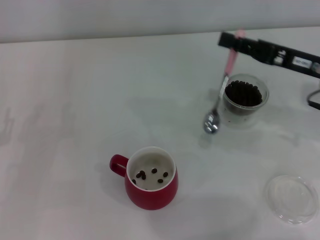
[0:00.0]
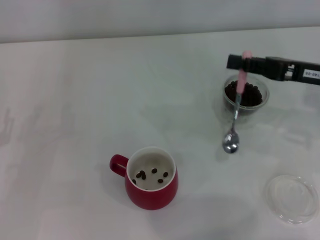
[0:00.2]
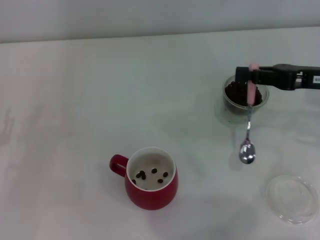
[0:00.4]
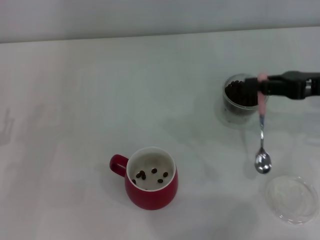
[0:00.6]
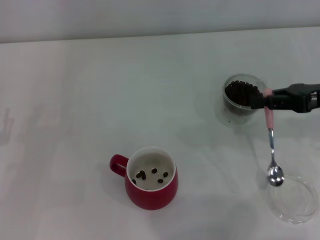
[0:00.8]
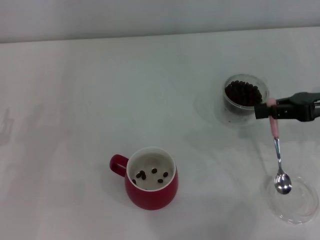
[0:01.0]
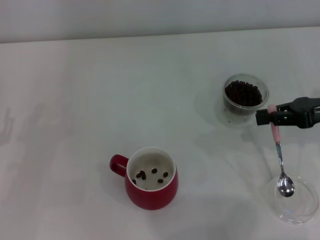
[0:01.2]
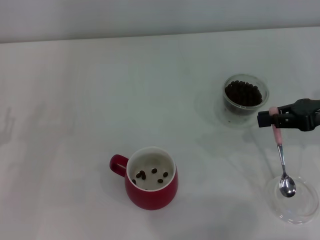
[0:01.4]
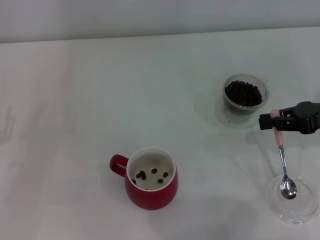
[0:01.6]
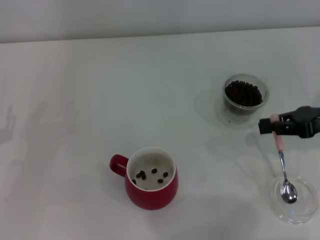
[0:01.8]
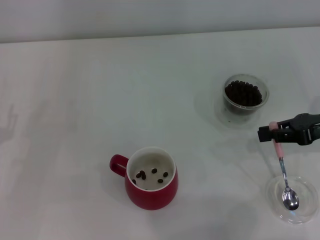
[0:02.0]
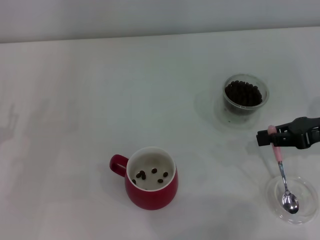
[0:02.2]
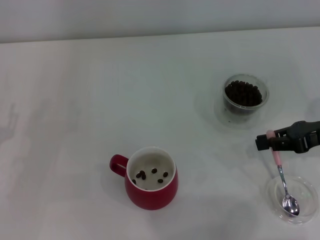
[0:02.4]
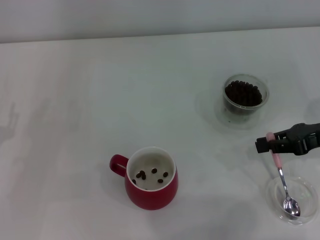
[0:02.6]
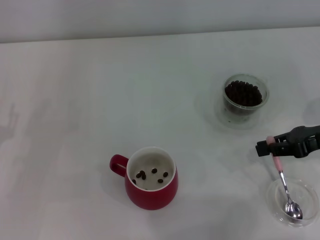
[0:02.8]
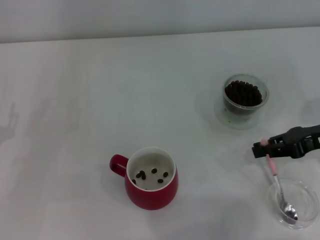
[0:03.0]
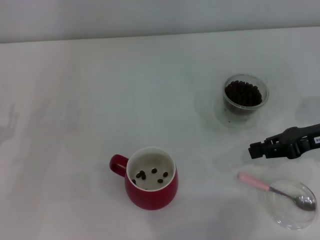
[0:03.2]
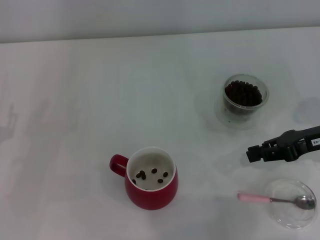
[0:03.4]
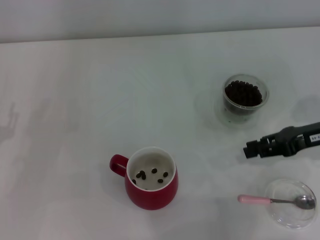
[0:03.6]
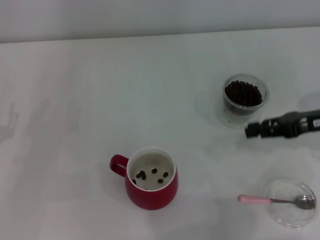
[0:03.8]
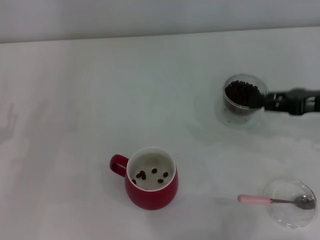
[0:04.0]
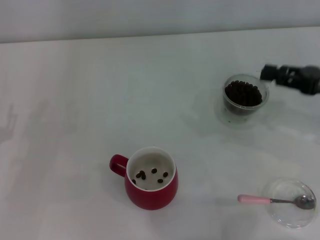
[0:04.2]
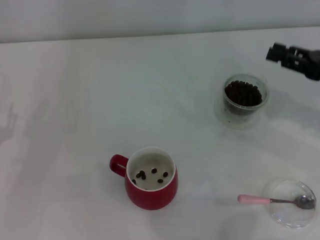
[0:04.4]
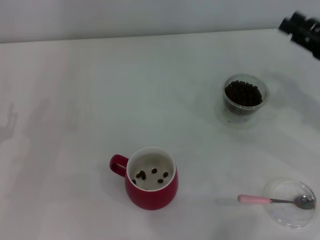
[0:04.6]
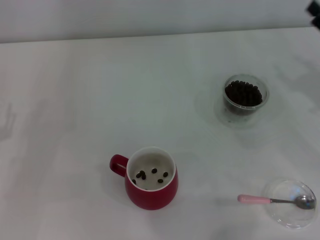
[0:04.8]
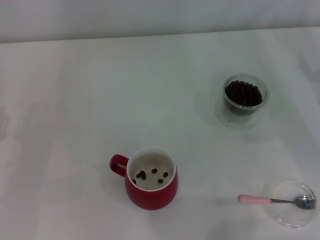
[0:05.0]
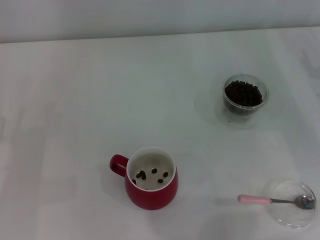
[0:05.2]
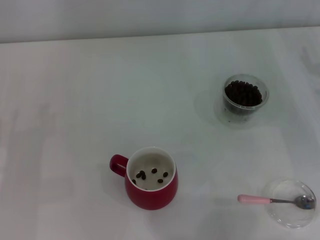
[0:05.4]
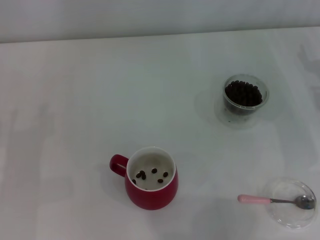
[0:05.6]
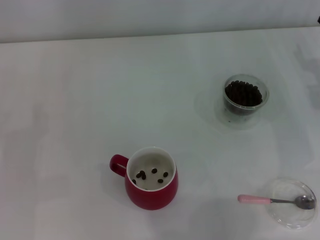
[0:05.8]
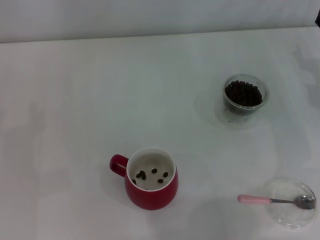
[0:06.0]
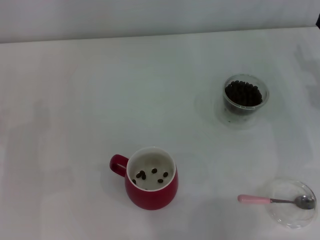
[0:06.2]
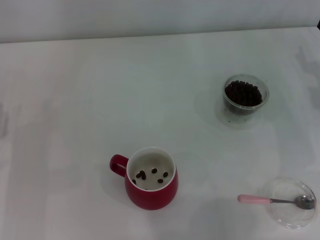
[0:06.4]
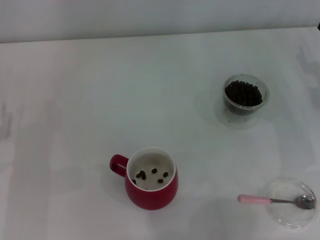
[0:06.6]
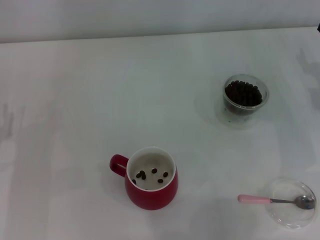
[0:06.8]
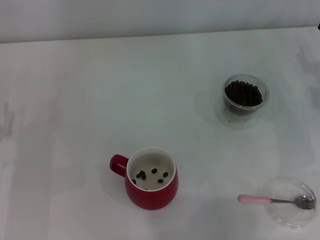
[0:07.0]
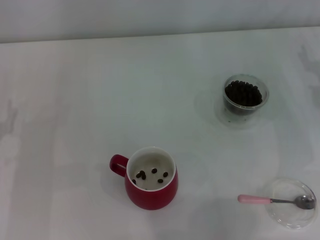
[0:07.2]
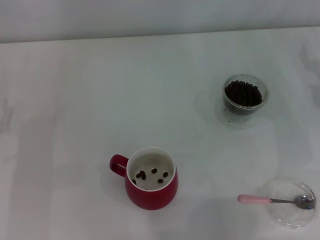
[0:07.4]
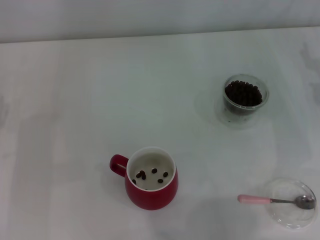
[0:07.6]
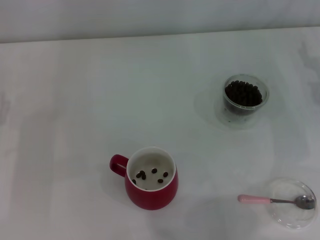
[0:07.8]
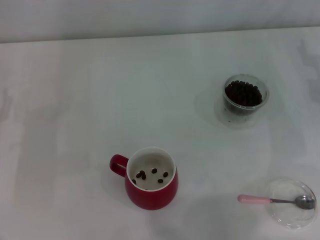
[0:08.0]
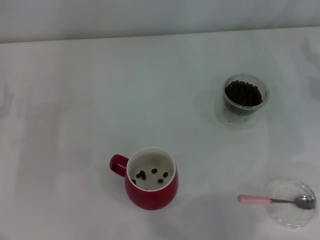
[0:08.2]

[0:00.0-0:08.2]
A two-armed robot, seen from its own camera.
Task of the whole recording: Use a pink spoon to take out the coffee beans from the glass and pour them into the red cup.
Step, 0:00.0 to 0:03.2: Place the spoon back in its original place with the right gripper.
0:00.0 to 0:01.6: The right gripper moves to the right, approximately 5 cm.
0:01.6 to 0:03.2: The grippers make only small movements.
0:03.2 to 0:05.0: The right gripper opens.
